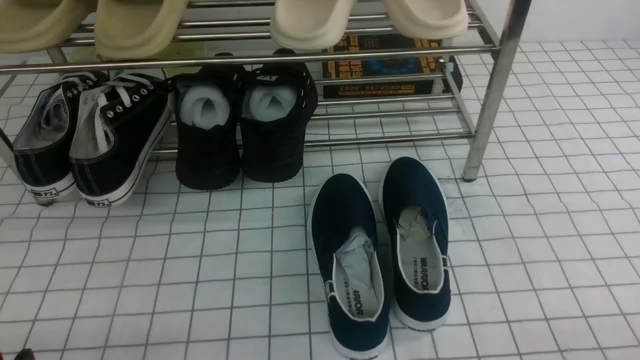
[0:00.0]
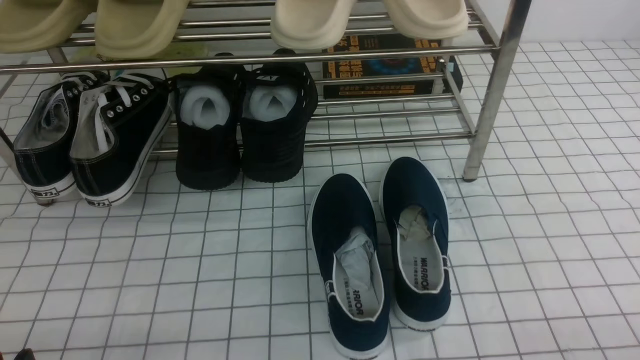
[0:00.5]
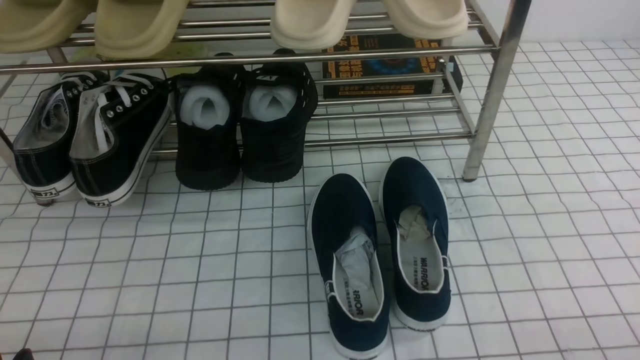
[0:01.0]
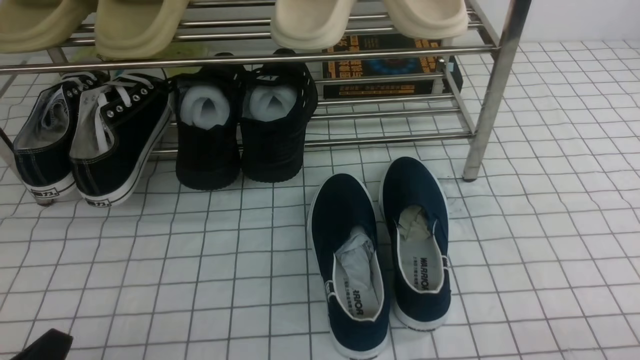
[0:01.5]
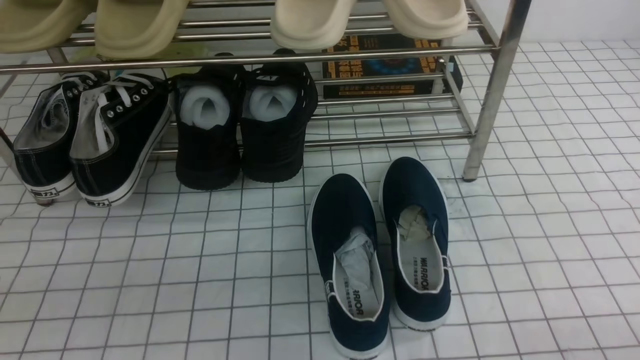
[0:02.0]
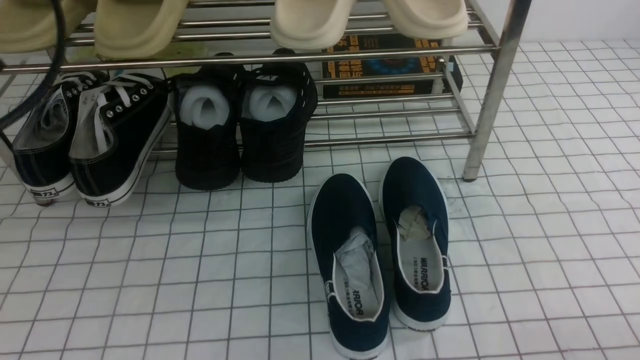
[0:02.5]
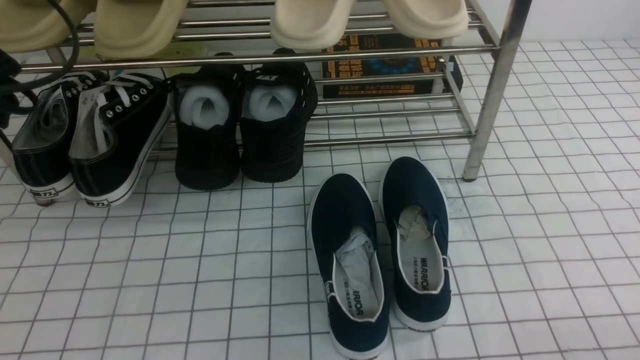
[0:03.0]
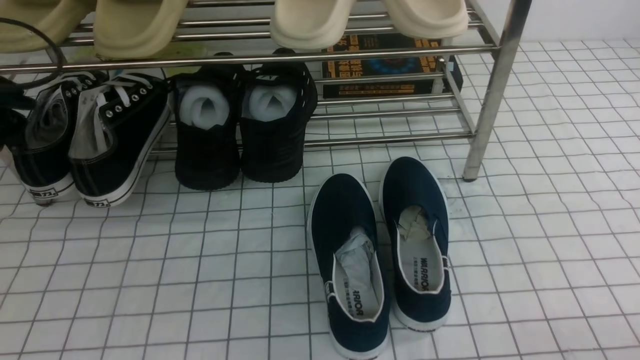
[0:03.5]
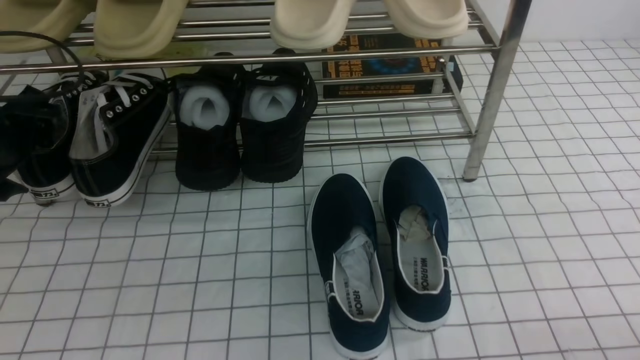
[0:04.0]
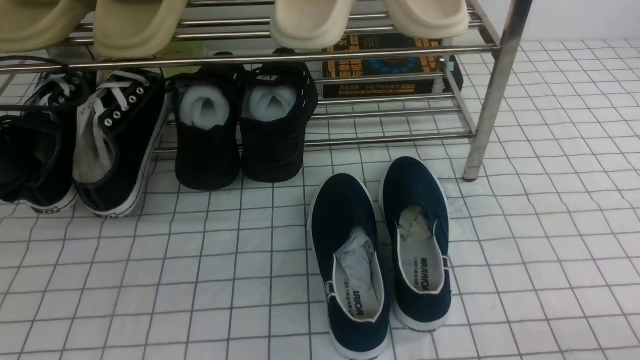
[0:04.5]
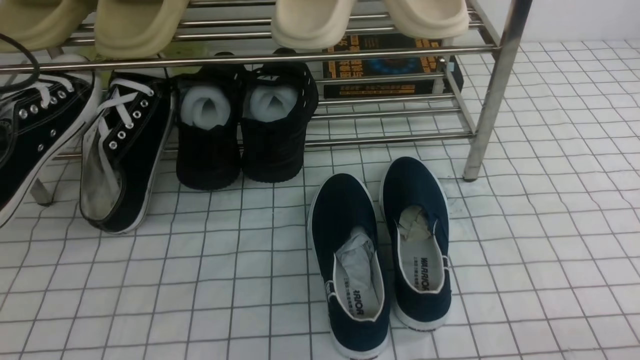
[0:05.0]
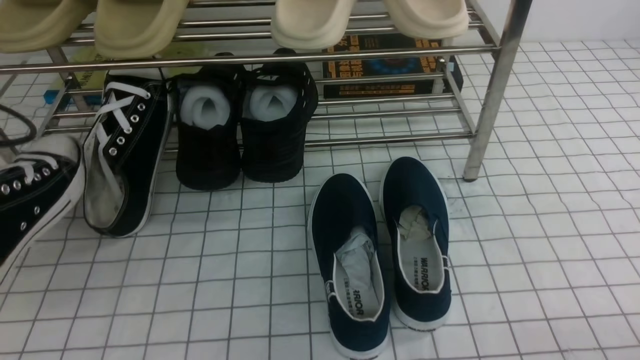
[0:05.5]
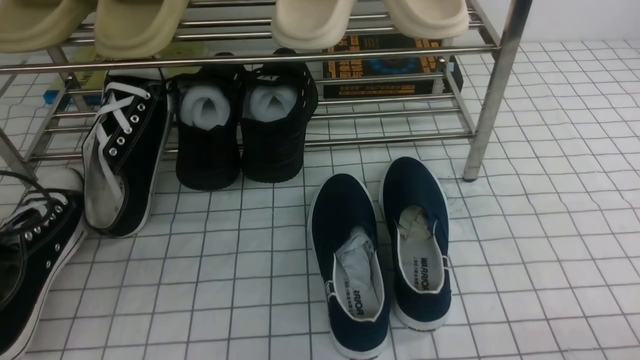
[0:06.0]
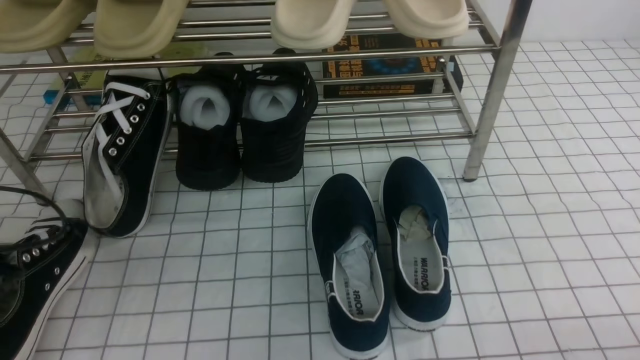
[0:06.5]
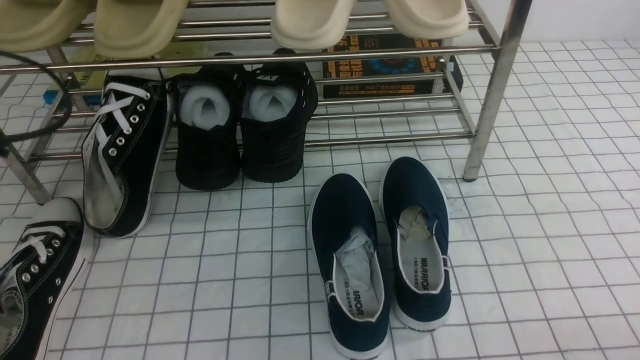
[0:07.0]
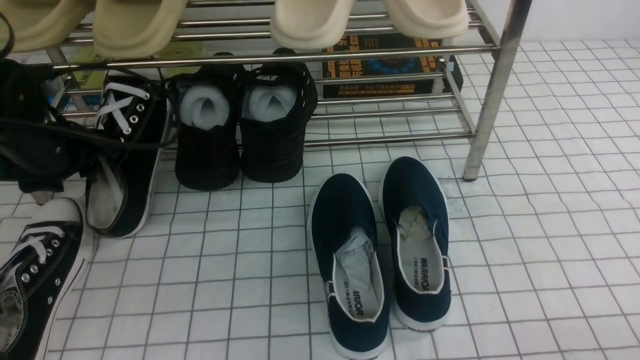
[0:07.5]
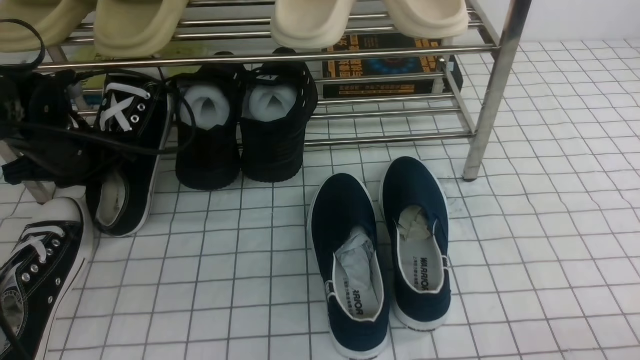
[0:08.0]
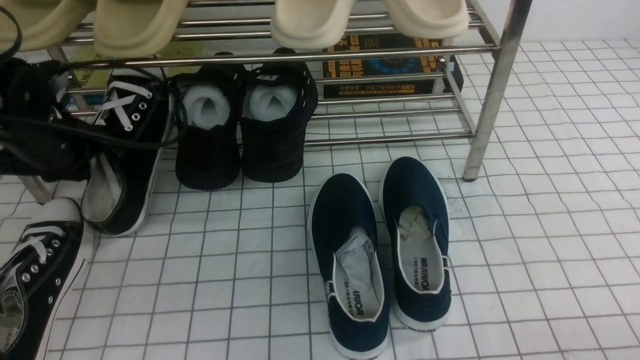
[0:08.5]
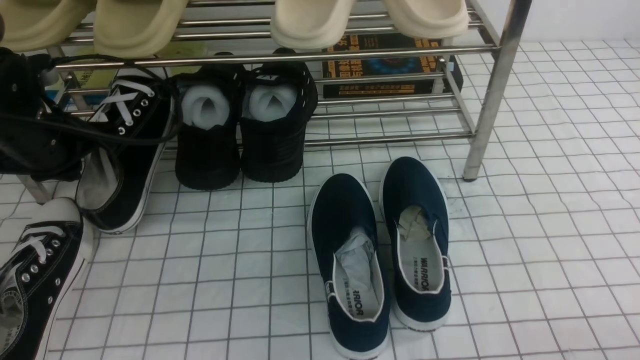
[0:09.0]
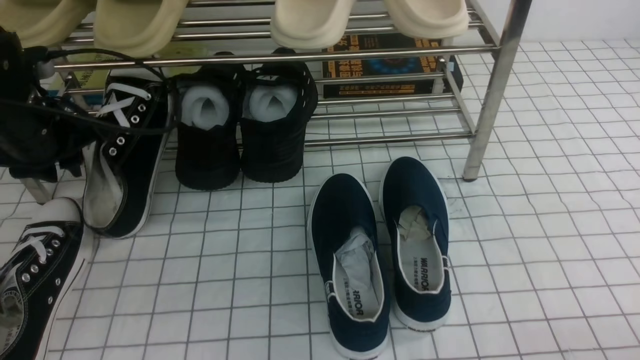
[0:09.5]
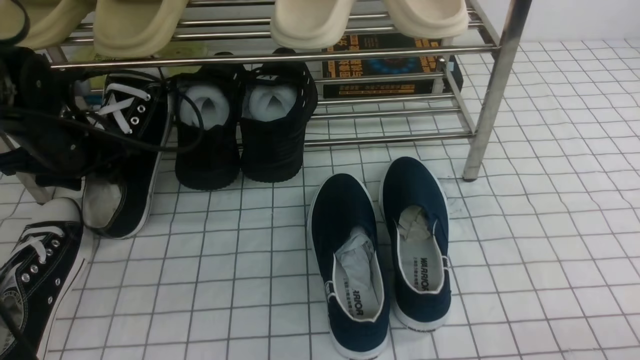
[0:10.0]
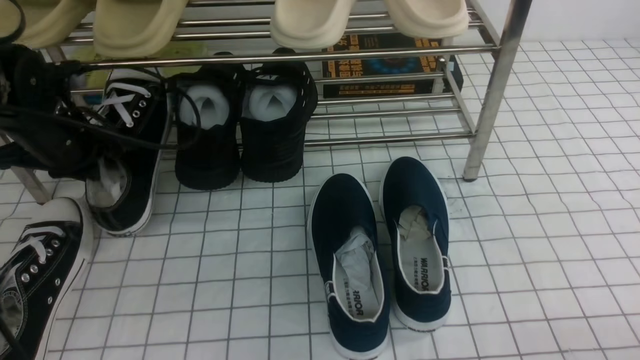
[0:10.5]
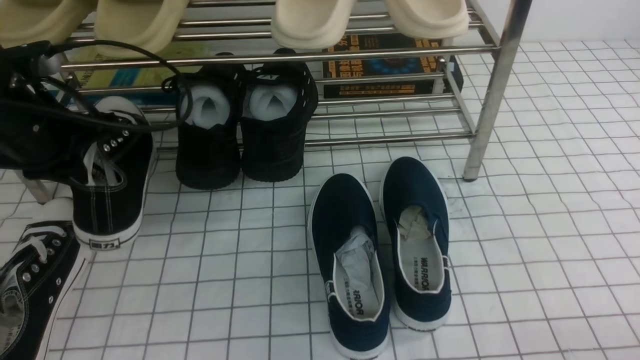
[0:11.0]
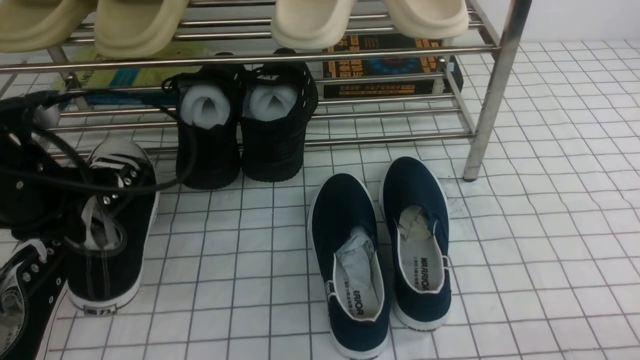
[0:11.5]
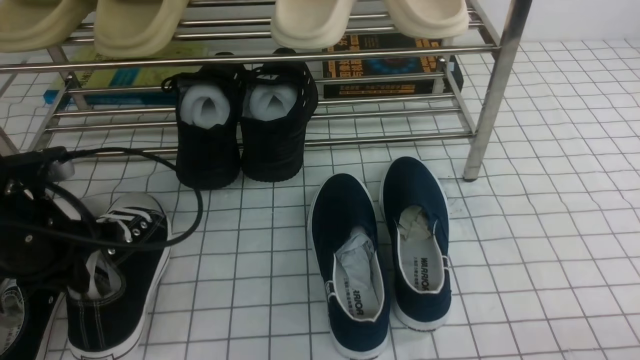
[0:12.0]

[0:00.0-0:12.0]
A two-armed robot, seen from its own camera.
Step, 0:00.0 to 0:04.0: use the left arm to clamp a shoe on the left side of the shoe rack.
Step, 0:04.5 to 0:06.5: Use your left arm to remove the clamped shoe from the shoe rack and put it down.
Step, 0:07.0 to 0:10.0: use the left arm to clamp a shoe on the left side of the shoe rack.
0:02.0 to 0:04.0: The left gripper shifts some 30 cm forward, and opens its fingers.
0:04.0 to 0:06.0: The left gripper is displaced backward by roughly 15 cm, and closes its fingers.
0:06.0 to 0:08.0: The left gripper moves forward, about 15 cm, and opens and closes again.
0:08.0 to 0:10.0: The left gripper opens up.
0:10.0 to 0:12.0: The left gripper travels backward by approximately 10 cm, and closes.

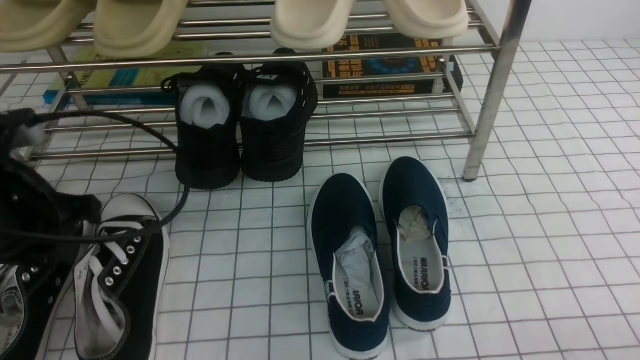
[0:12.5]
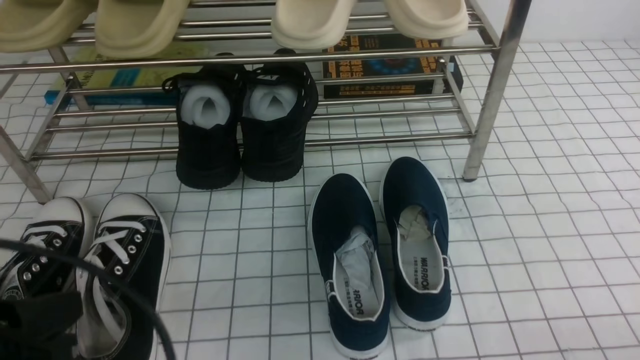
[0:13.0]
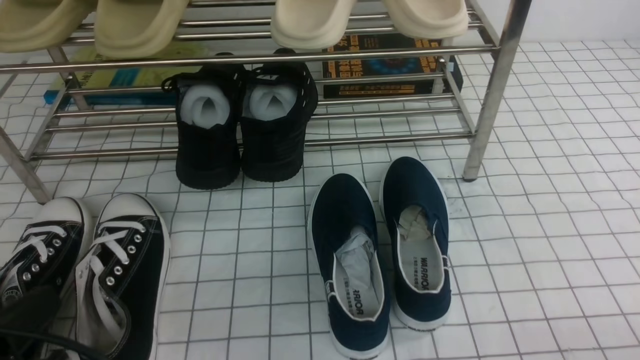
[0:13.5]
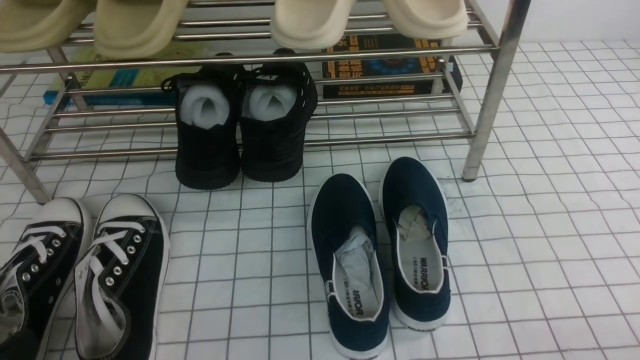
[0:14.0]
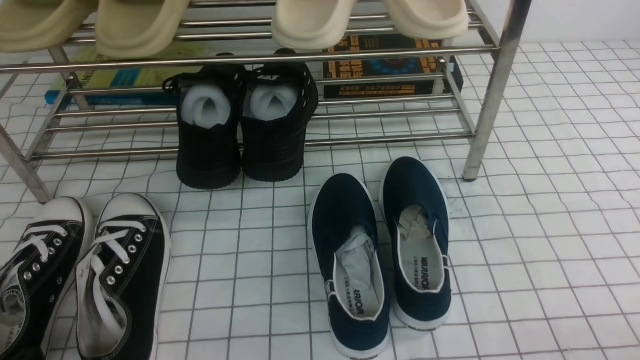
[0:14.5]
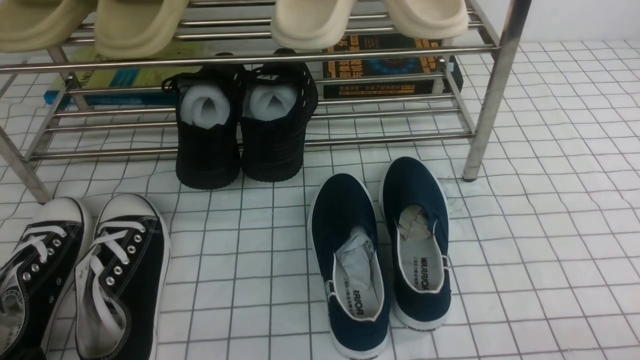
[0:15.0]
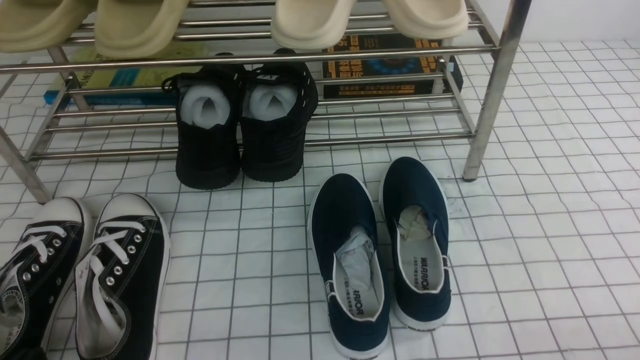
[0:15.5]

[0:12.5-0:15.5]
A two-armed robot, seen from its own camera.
0:12.5 to 0:14.0: The left gripper travels backward and downward by about 20 cm.
